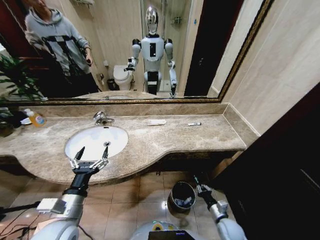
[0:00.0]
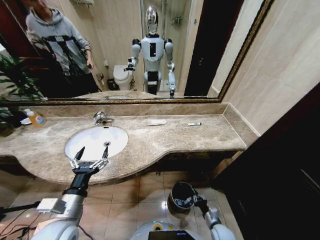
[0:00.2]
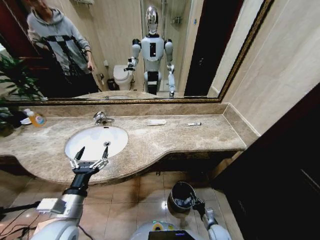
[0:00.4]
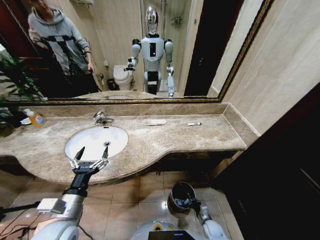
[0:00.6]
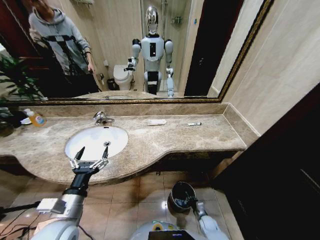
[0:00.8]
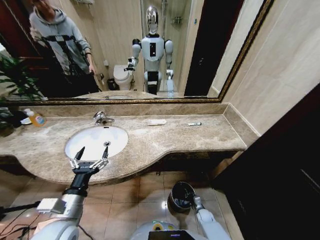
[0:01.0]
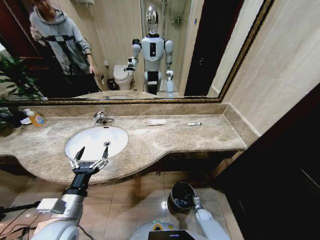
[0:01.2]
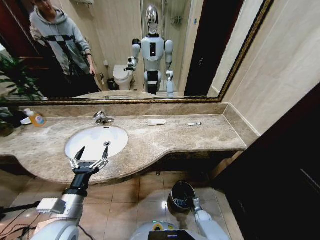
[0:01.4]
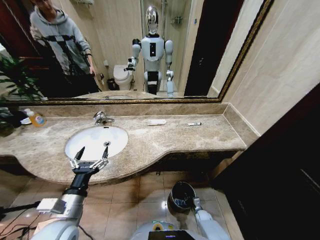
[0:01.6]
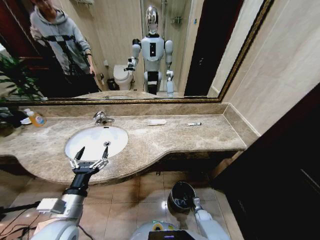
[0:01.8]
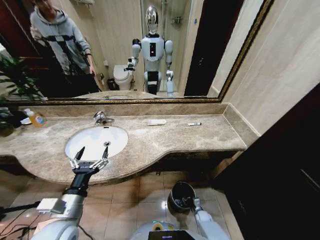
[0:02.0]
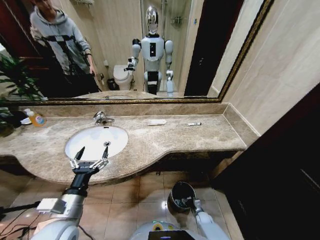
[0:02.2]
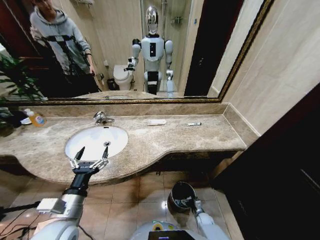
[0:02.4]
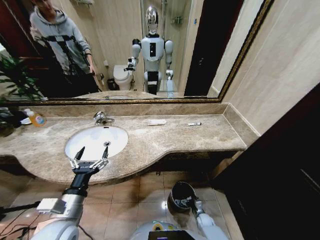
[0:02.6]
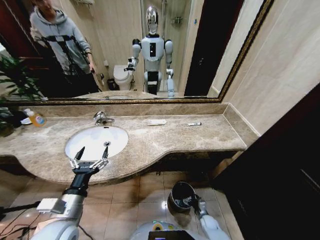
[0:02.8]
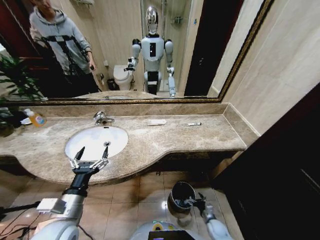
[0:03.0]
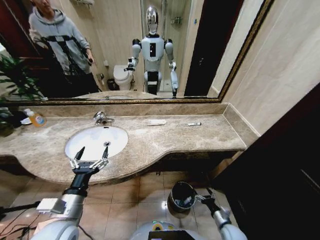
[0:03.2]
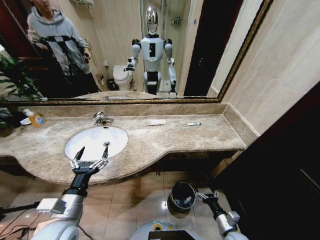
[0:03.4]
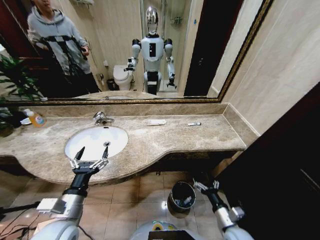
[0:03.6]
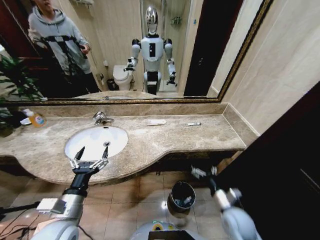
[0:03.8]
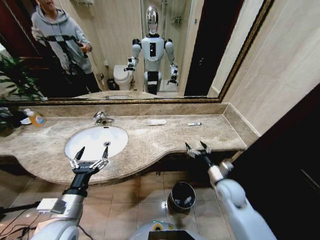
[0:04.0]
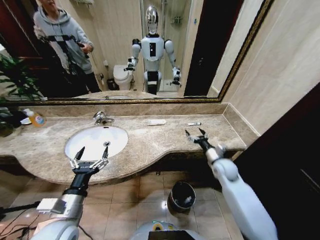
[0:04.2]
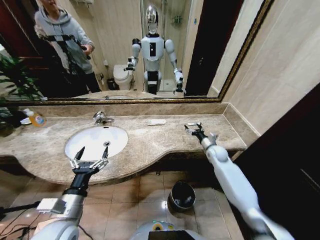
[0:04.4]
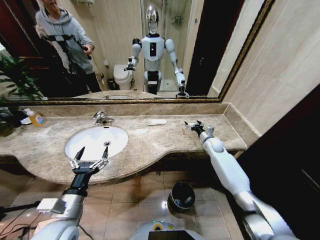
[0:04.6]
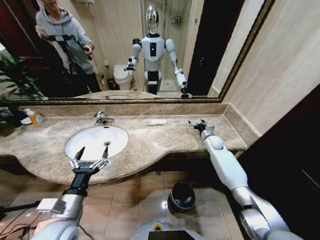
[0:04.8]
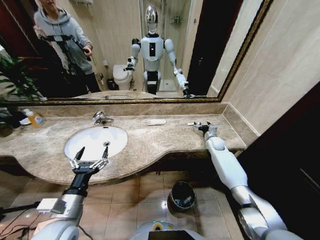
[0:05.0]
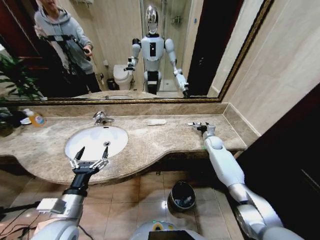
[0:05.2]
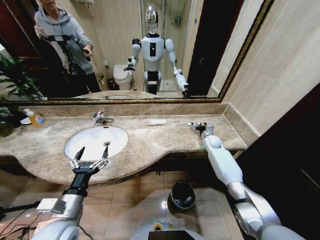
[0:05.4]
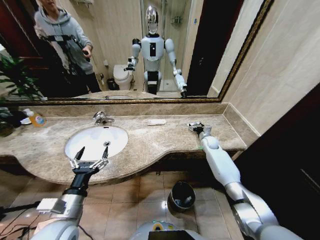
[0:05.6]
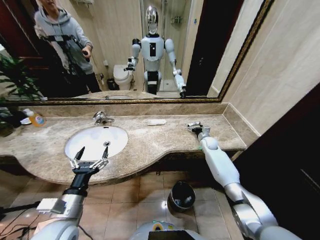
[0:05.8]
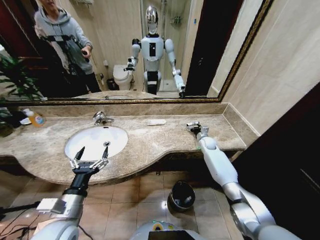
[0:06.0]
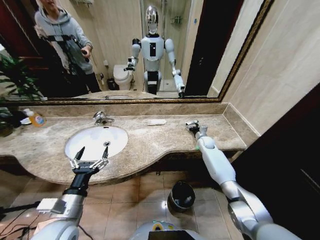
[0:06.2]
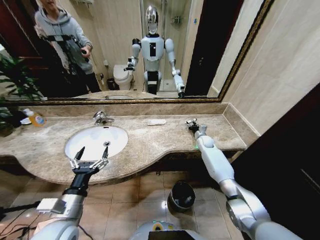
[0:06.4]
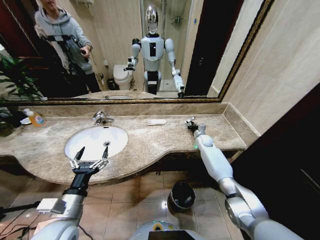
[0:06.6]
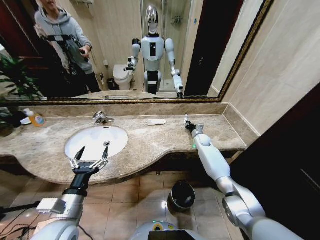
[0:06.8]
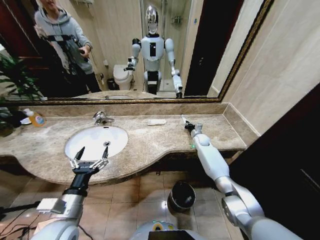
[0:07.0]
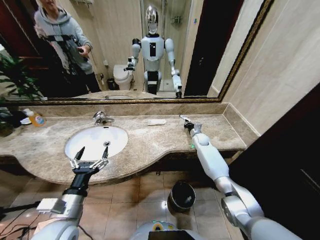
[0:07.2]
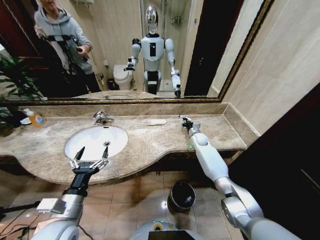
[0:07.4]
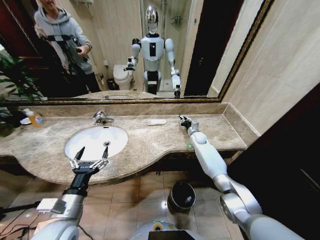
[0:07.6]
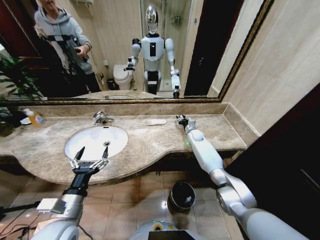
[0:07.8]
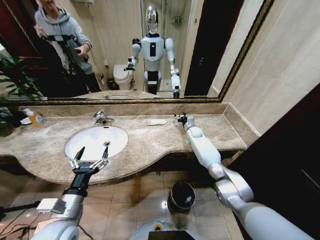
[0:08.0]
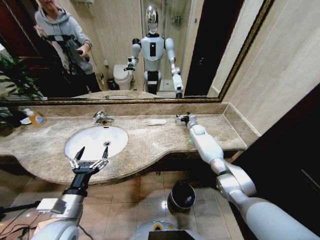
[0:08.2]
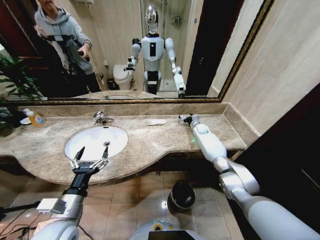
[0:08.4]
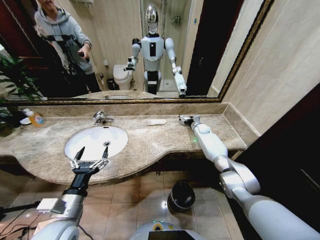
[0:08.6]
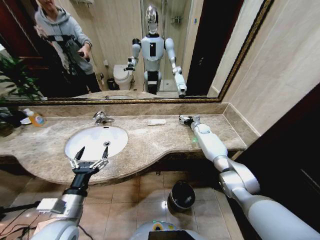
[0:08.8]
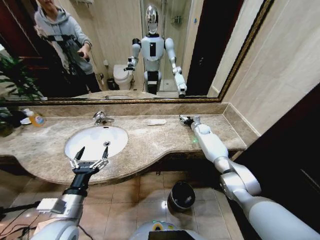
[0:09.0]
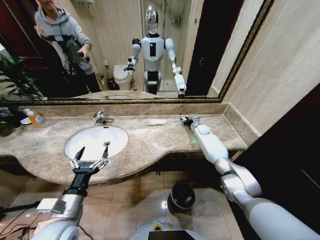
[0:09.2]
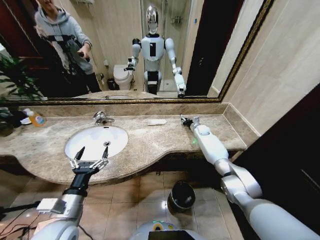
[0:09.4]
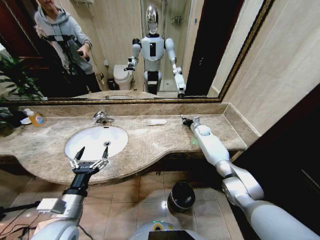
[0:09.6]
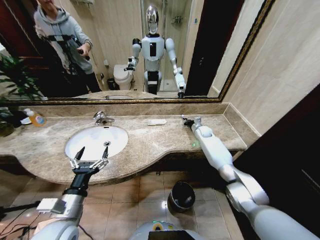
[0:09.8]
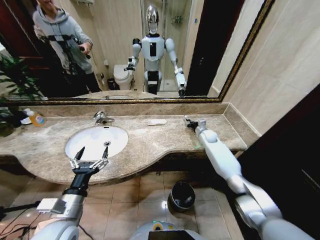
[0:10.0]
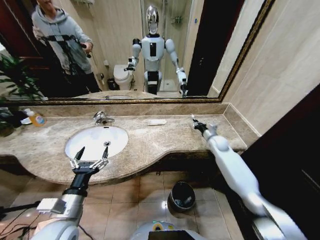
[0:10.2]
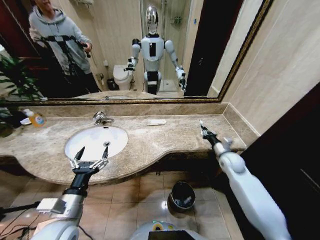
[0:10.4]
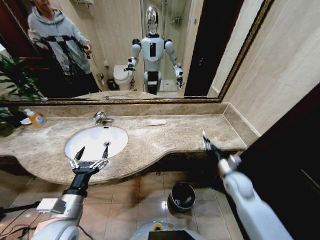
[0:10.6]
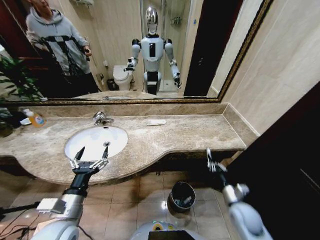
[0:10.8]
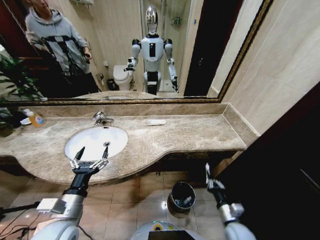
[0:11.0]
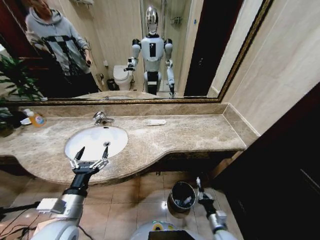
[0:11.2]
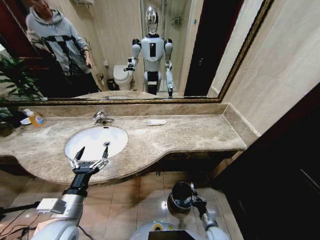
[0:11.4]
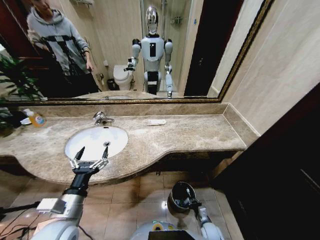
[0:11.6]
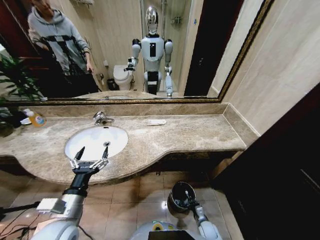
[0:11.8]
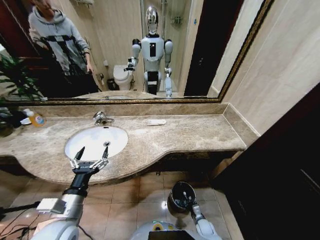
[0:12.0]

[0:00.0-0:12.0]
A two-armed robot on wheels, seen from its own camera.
Task of the whole recording: Pick up the trash from the sink and place it in the trash bin.
0:00.0 to 0:01.6: The right gripper heads downward, covering some 20 cm.
0:01.6 to 0:03.0: The right gripper heads upward and backward, covering some 10 cm, and opens up.
0:03.0 to 0:04.4: The right gripper goes about 40 cm upward and forward.
0:04.4 to 0:06.0: The right gripper travels forward by approximately 10 cm.
0:06.0 to 0:07.6: The right gripper moves to the left, approximately 5 cm, and closes.
0:07.6 to 0:09.0: The right gripper moves forward, approximately 5 cm, and opens.
0:09.0 to 0:10.4: The right gripper travels backward by approximately 25 cm, and closes its fingers.
0:10.4 to 0:12.0: The right gripper moves downward and backward, some 40 cm.

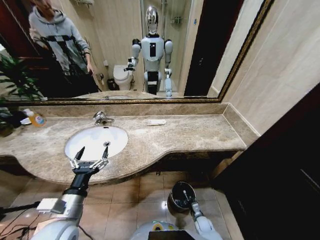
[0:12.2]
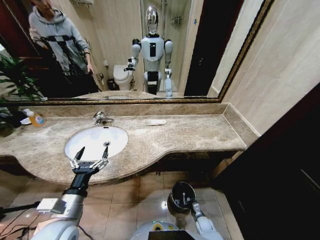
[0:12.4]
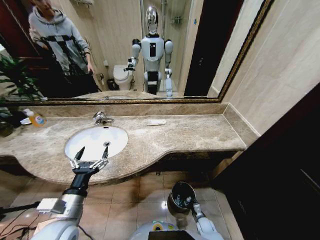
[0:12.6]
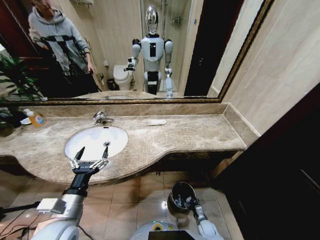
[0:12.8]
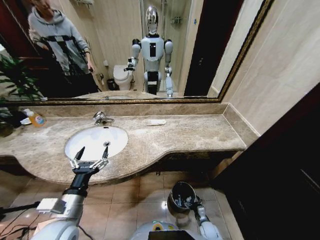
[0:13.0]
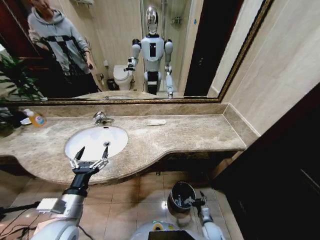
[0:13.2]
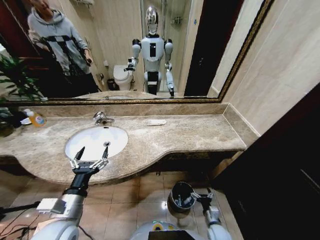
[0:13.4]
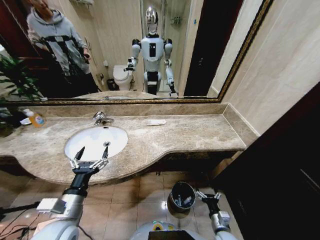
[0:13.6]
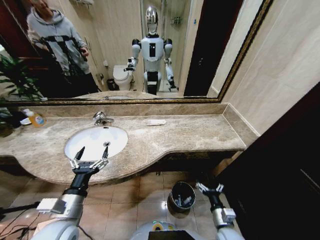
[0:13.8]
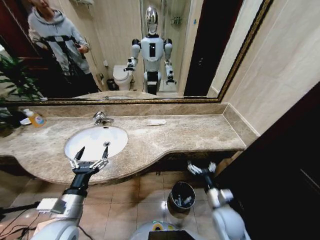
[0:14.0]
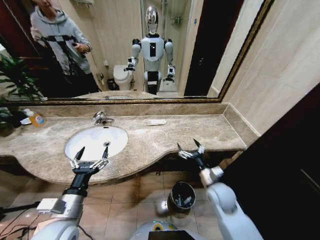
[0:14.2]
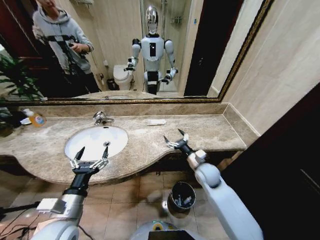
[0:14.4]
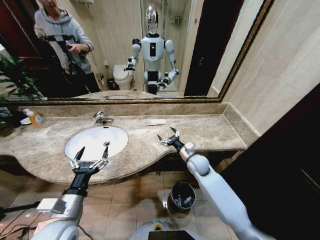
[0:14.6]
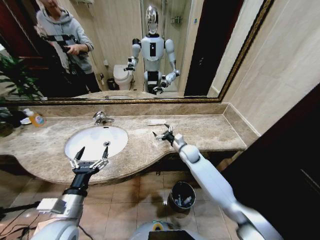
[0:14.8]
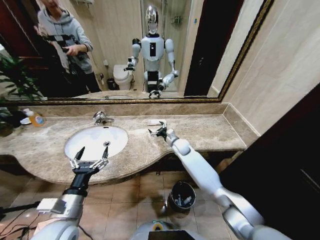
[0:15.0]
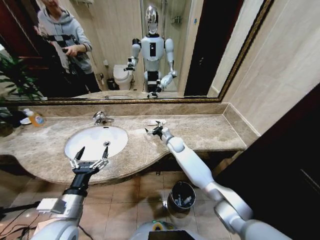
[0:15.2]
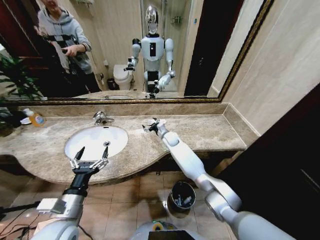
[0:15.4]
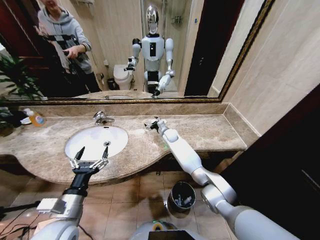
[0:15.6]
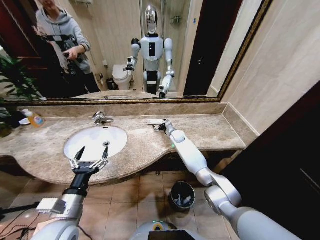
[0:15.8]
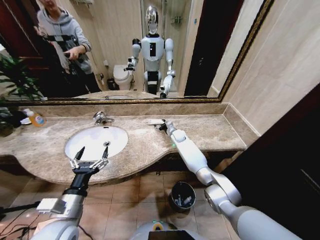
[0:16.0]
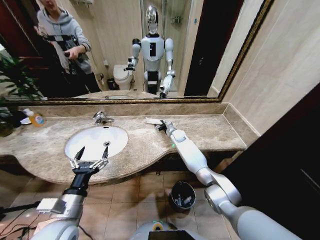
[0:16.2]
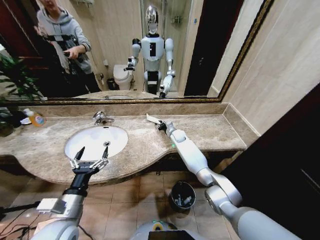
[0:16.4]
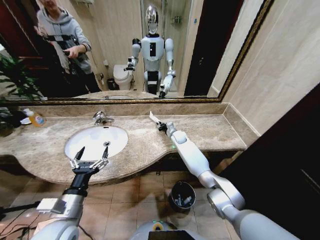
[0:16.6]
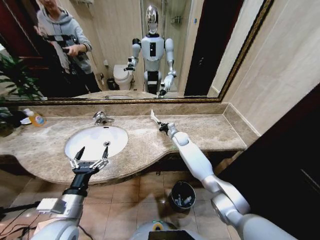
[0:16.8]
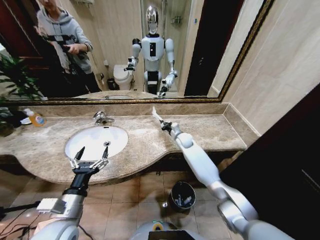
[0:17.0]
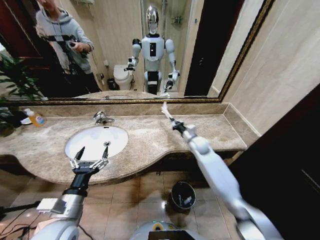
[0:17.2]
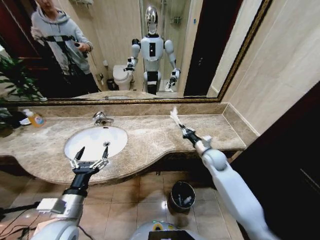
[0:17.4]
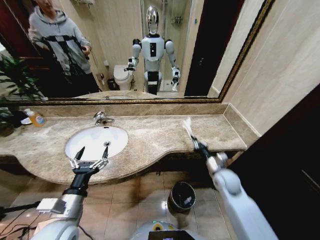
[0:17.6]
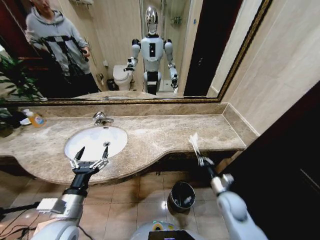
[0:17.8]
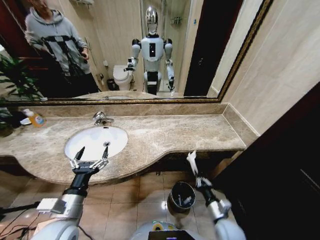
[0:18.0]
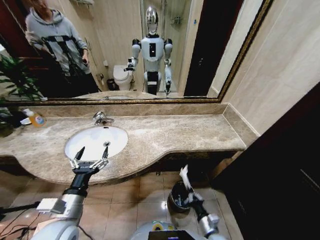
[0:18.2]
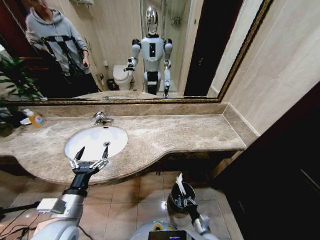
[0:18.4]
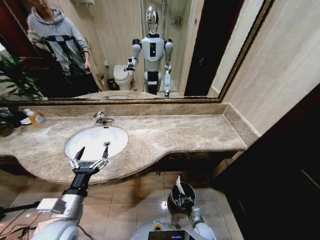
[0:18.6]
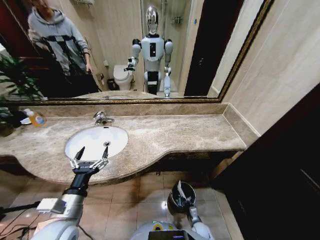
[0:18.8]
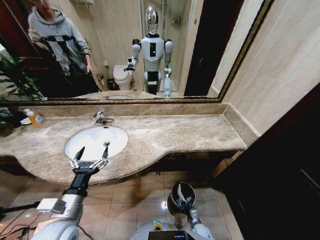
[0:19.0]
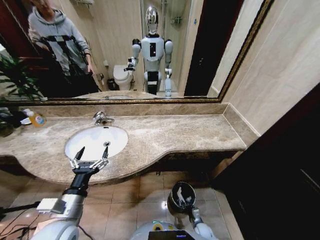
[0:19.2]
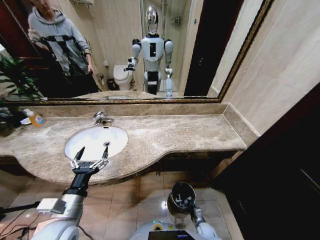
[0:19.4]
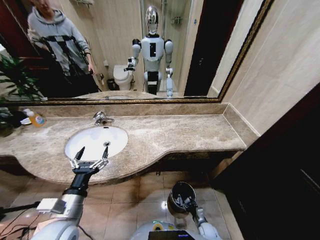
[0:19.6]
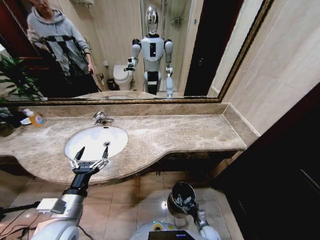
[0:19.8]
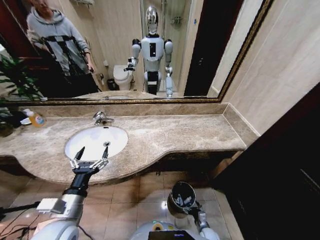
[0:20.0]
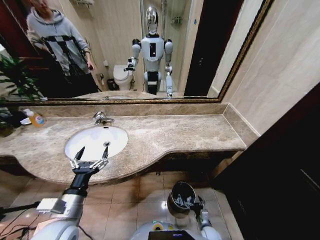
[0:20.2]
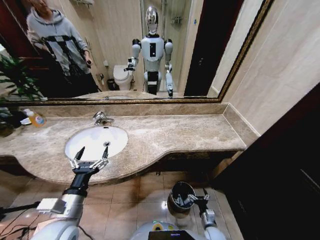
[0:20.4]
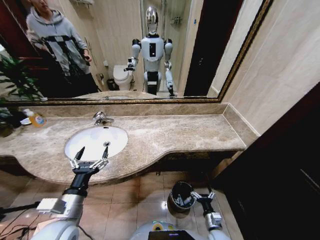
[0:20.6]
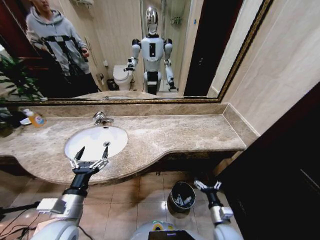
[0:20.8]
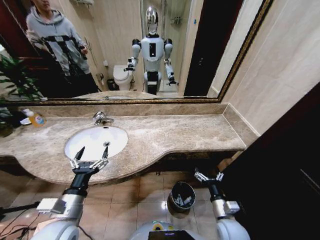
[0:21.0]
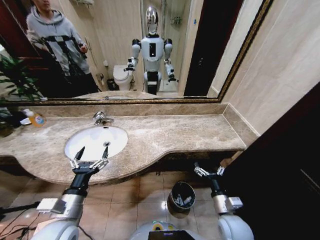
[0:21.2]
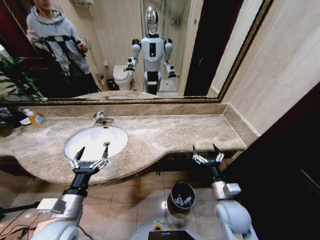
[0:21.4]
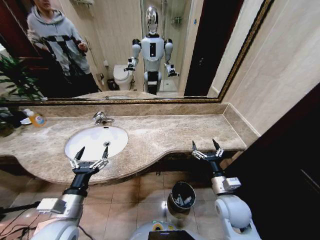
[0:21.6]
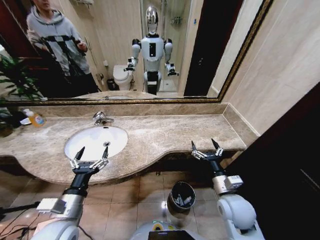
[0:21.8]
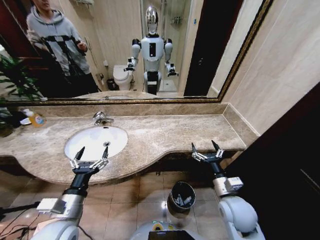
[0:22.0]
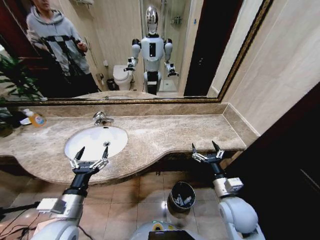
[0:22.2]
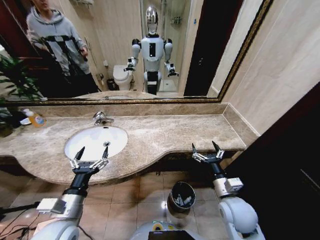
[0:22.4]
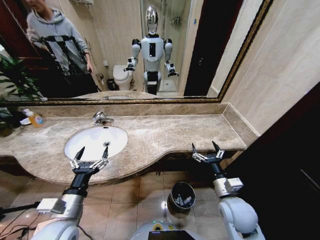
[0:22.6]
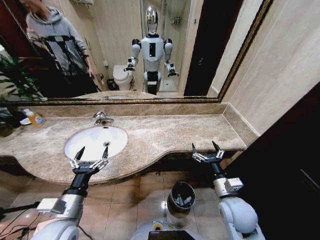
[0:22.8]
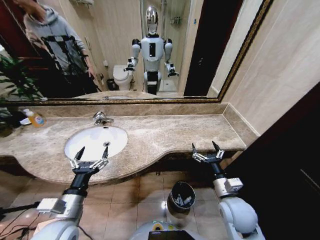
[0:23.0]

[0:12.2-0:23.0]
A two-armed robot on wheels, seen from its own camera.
Task of the whole recording: Pick up the trash from the sink and place it in the trash bin.
0:12.2 to 0:13.8: The right gripper shifts roughly 25 cm upward, and opens.
0:13.8 to 0:15.2: The right gripper goes roughly 40 cm forward.
0:15.2 to 0:16.8: The right gripper shifts by approximately 5 cm, and closes its fingers.
0:16.8 to 0:18.4: The right gripper is displaced backward and downward by approximately 50 cm.
0:18.4 to 0:20.0: The right gripper moves downward, approximately 15 cm, and opens up.
0:20.0 to 0:21.4: The right gripper moves upward, roughly 35 cm.
0:21.4 to 0:23.0: The grippers move only a little.
